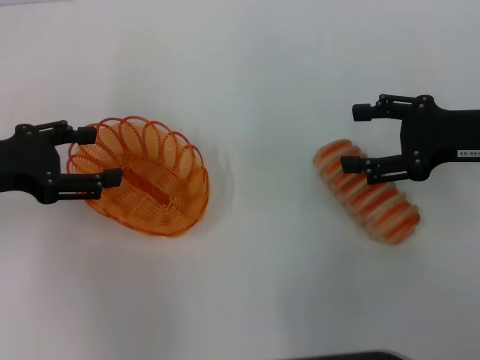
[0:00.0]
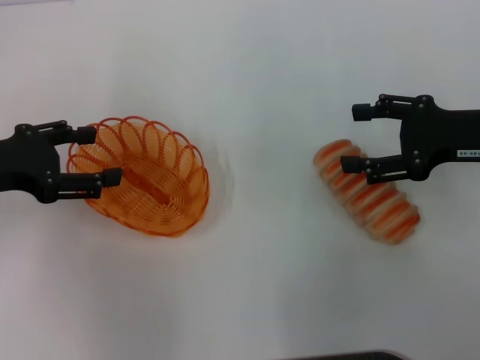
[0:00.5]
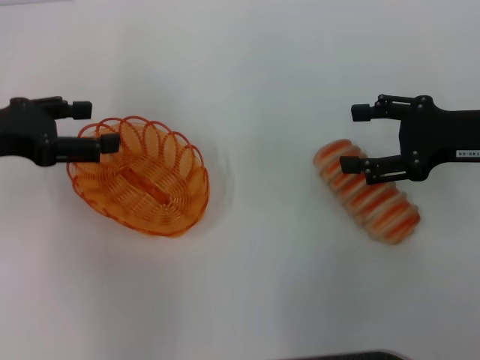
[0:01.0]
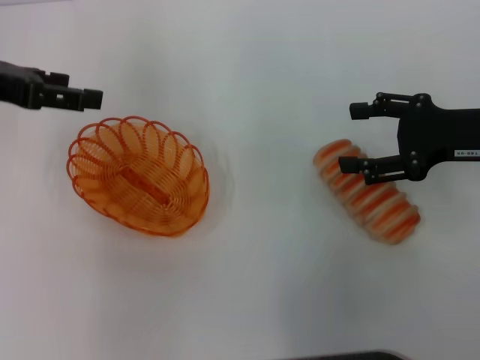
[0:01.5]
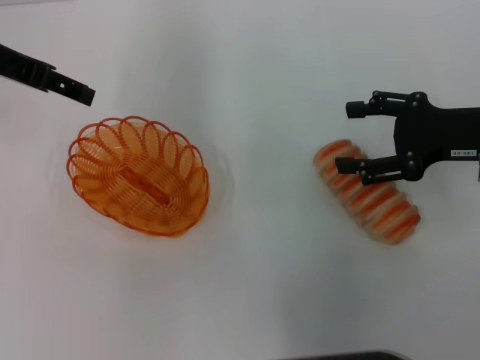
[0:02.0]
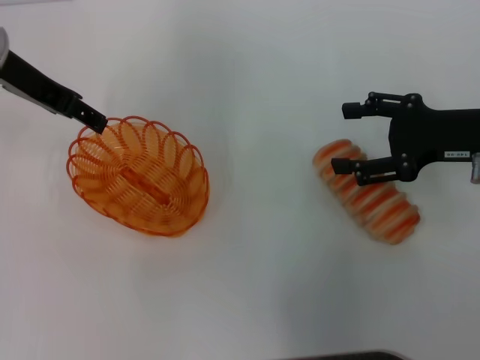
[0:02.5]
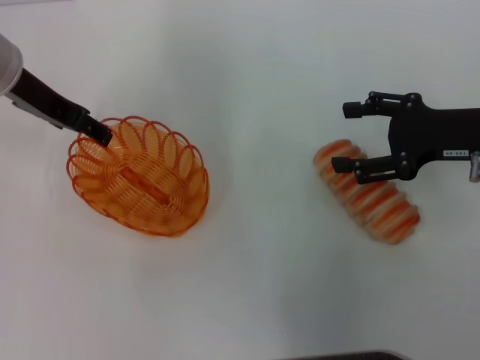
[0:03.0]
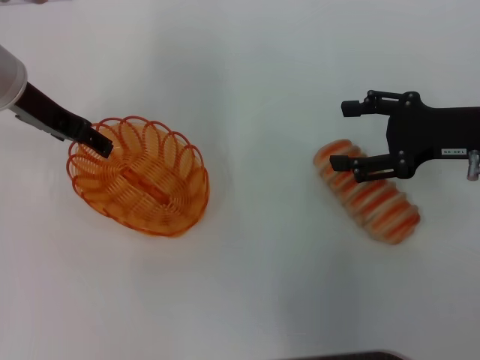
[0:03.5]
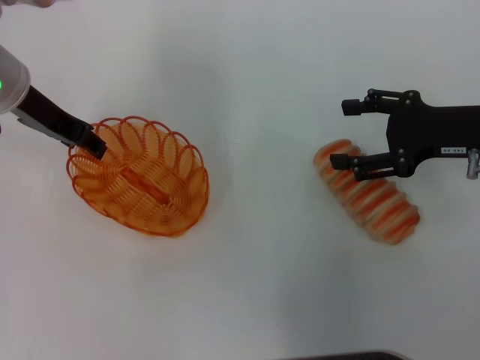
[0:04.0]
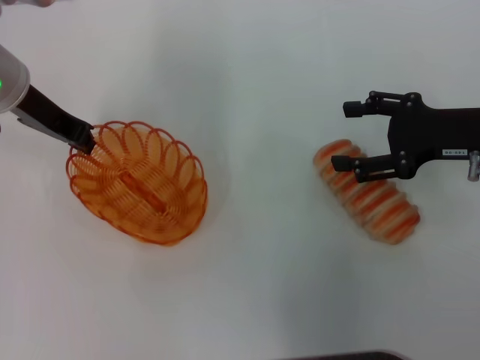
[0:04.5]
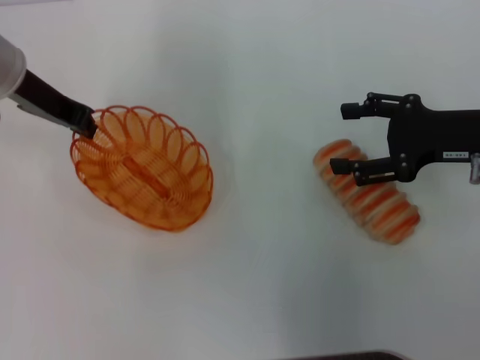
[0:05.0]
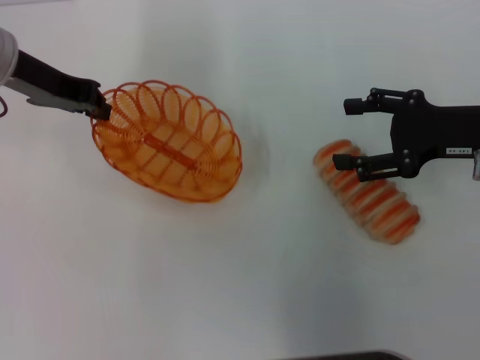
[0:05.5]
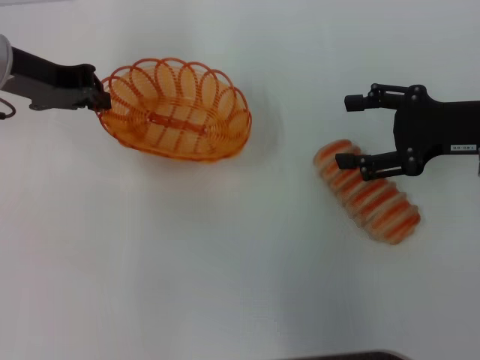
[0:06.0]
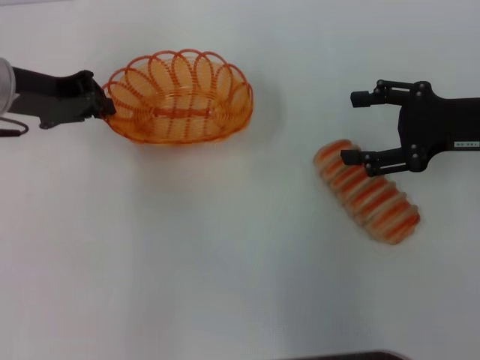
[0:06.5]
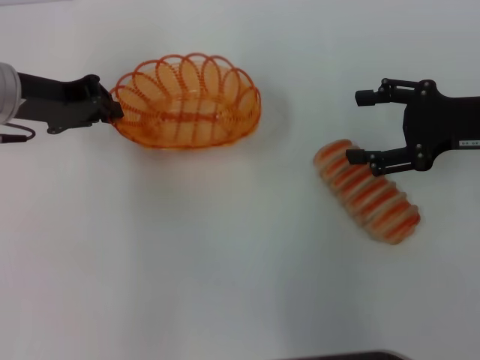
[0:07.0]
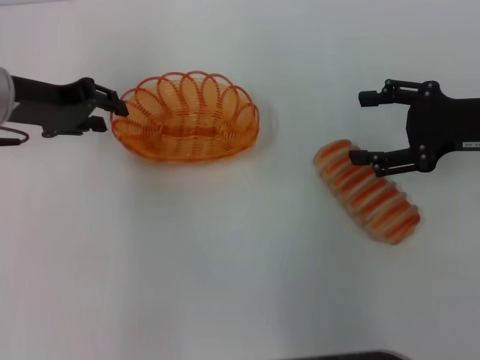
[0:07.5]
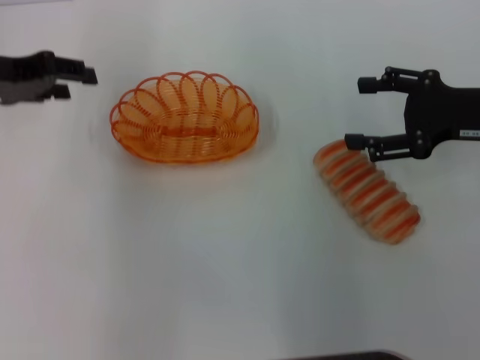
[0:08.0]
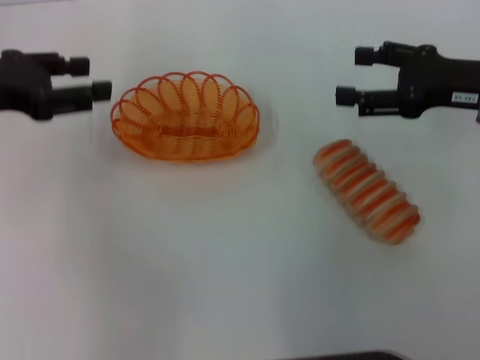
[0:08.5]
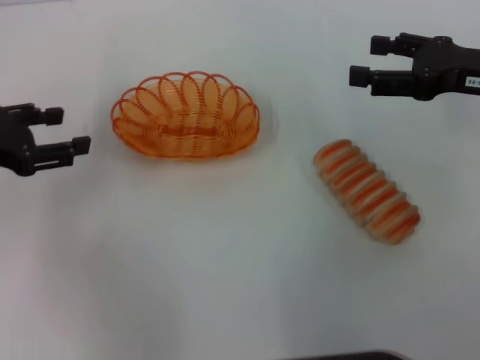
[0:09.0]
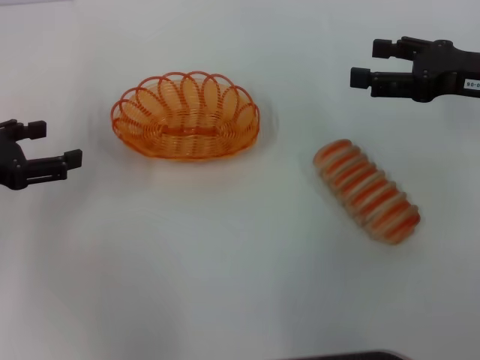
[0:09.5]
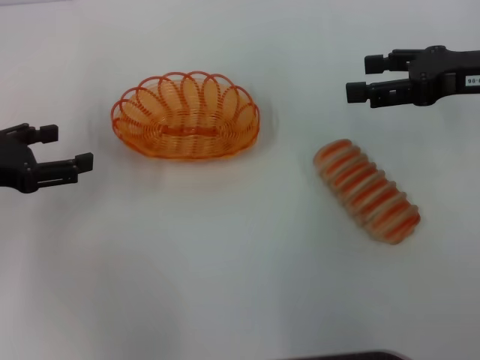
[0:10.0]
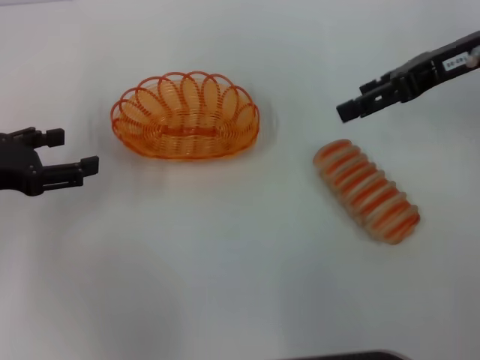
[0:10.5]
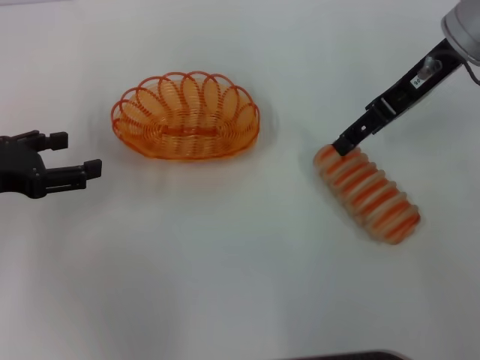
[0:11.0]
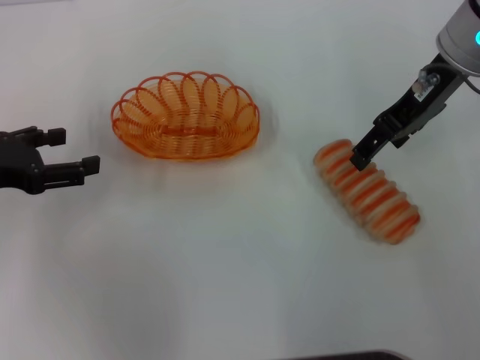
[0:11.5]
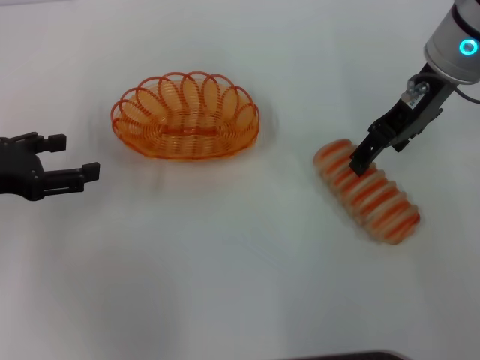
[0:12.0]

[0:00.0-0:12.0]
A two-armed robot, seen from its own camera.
Step, 0:00.0 to 0:05.0: Pick up the basket with the left gripper.
Step, 0:06.0 to 0:08.0: Place the basket in the center of view with the left gripper.
0:00.0 to 0:02.0: The left gripper heads forward and upward, covering roughly 15 cm.
0:02.0 to 0:04.0: The left gripper heads downward, covering about 5 cm.
0:04.0 to 0:06.0: The left gripper closes.
0:06.0 to 0:08.0: The left gripper opens its fingers.
0:08.0 to 0:10.0: The left gripper shifts approximately 10 cm backward and downward, and opens.
0:10.0 to 0:12.0: The right gripper heads to the left and forward, covering about 10 cm.

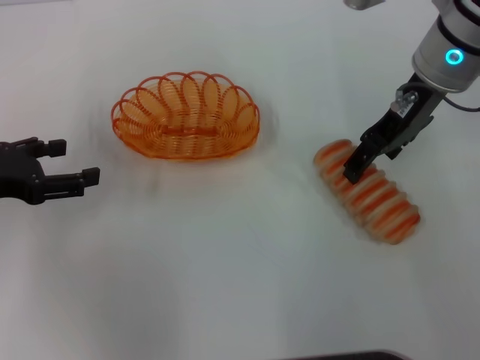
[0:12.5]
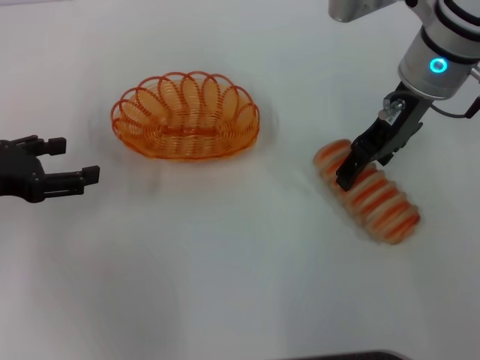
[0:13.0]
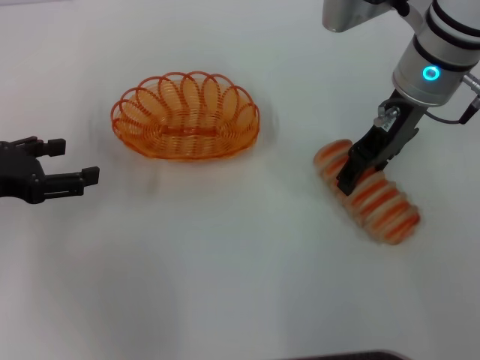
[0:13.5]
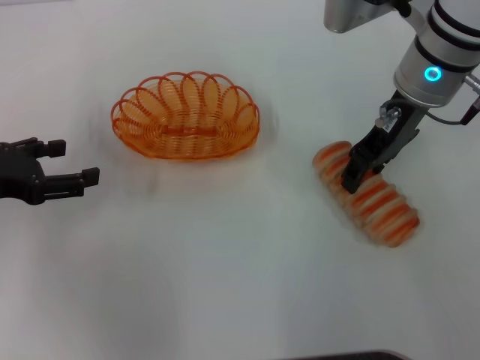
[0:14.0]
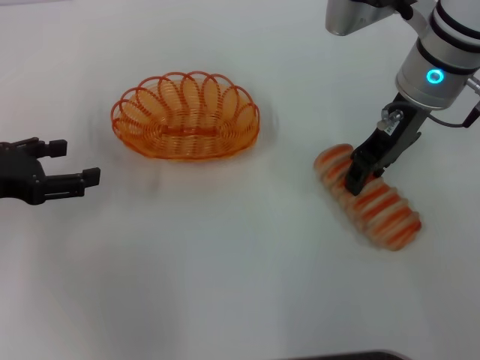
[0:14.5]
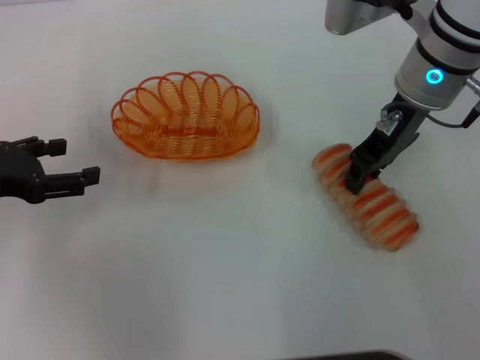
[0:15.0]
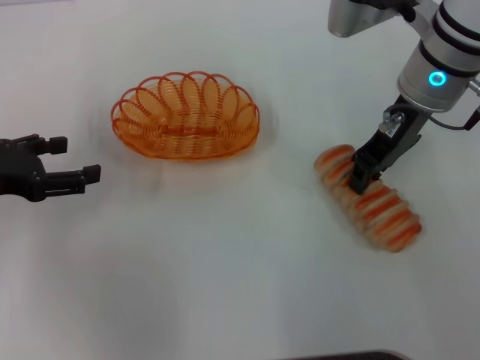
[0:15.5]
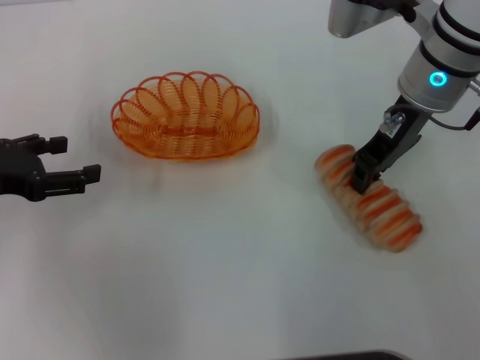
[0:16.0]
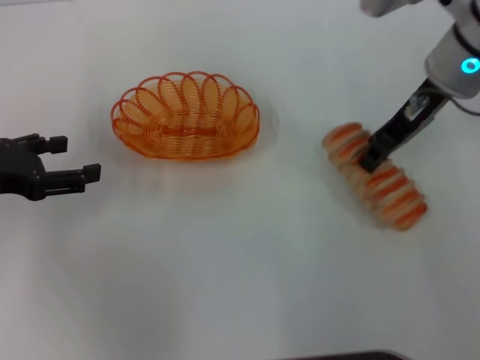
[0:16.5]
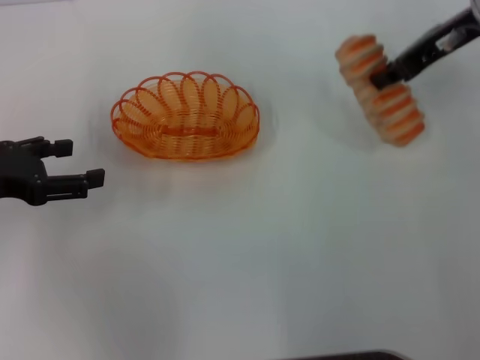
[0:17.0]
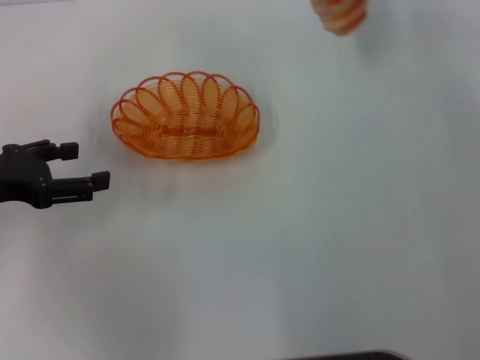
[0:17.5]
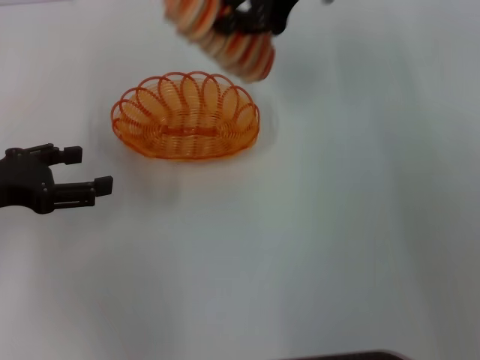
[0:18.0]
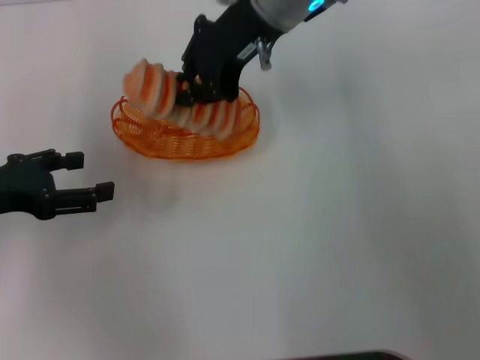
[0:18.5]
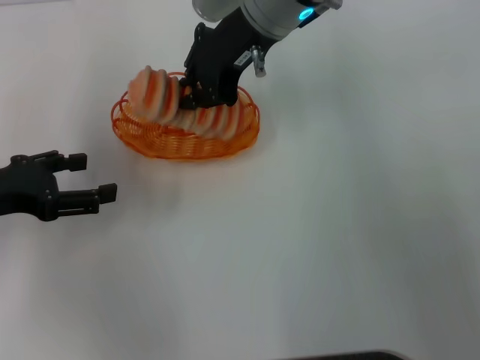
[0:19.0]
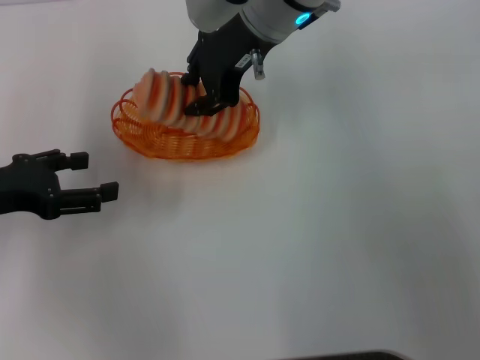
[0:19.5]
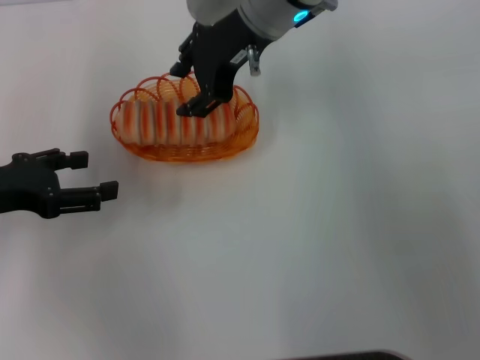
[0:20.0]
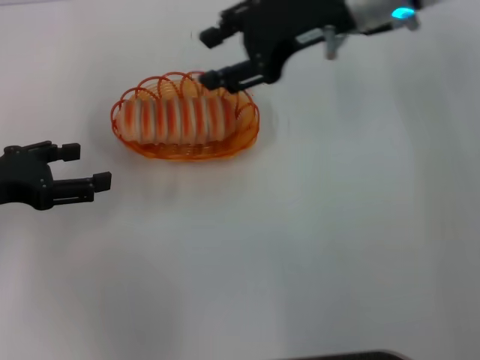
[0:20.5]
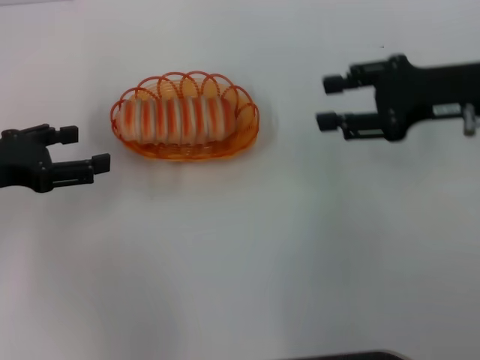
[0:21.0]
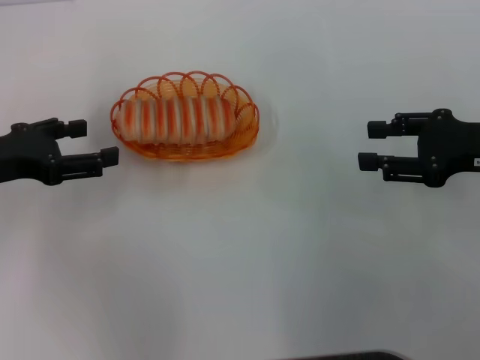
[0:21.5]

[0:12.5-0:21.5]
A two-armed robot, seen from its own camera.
Step, 0:12.5 to 0:16.5: Pick up the long bread with the right gripper.
Step, 0:17.0 to 0:20.5: Place the long bread into the basket with the right gripper.
0:12.5 to 0:14.5: The right gripper closes.
0:14.5 to 0:17.0: The right gripper moves to the right, some 10 cm, and closes its fingers.
0:17.0 to 0:19.5: The right gripper travels to the left by approximately 20 cm.
0:19.5 to 0:21.5: The right gripper goes some 30 cm to the right and backward, and opens.

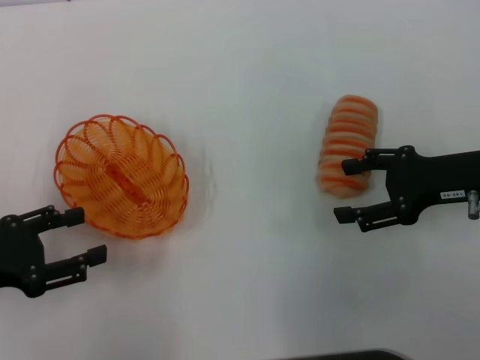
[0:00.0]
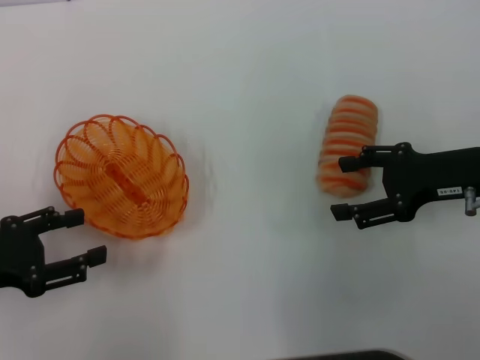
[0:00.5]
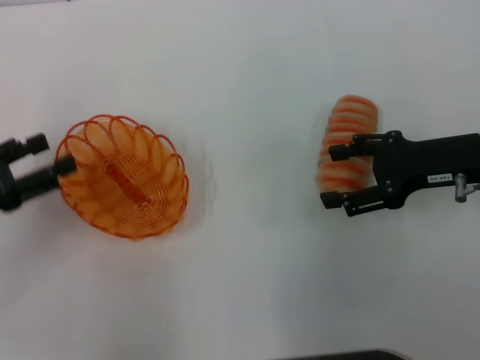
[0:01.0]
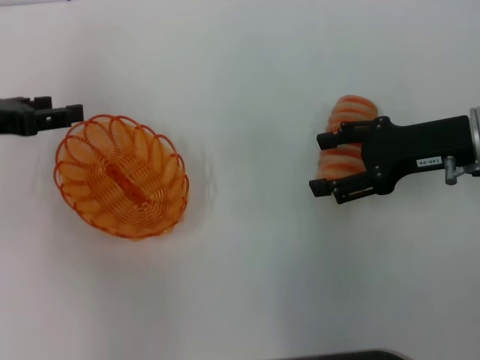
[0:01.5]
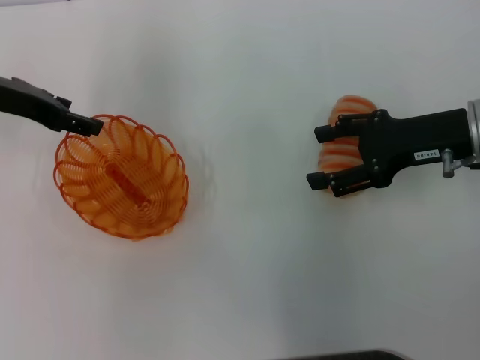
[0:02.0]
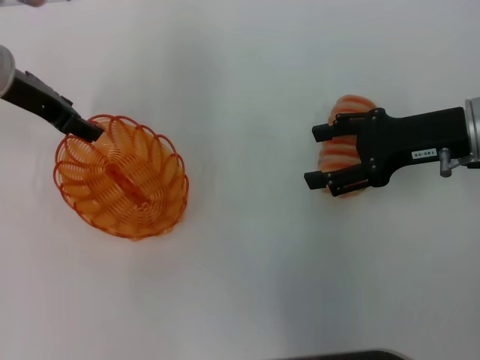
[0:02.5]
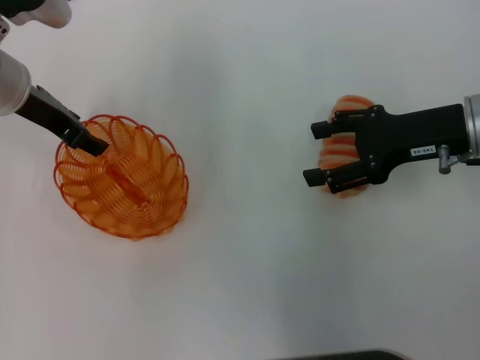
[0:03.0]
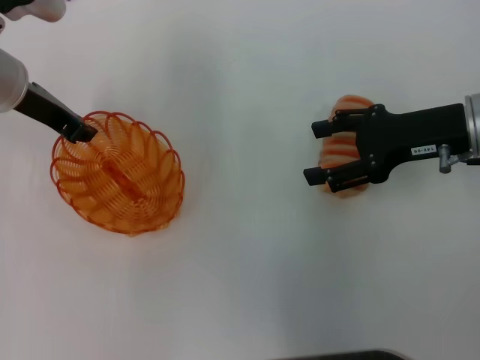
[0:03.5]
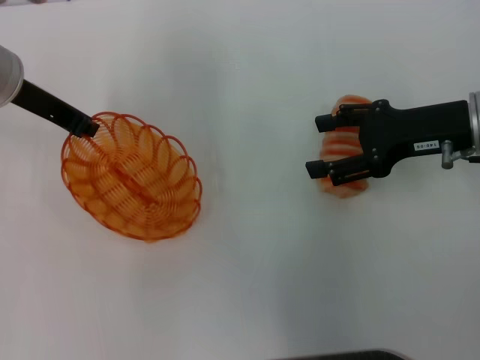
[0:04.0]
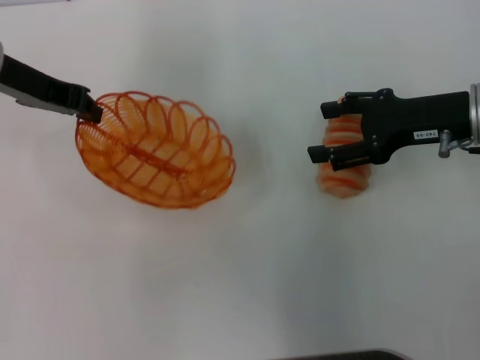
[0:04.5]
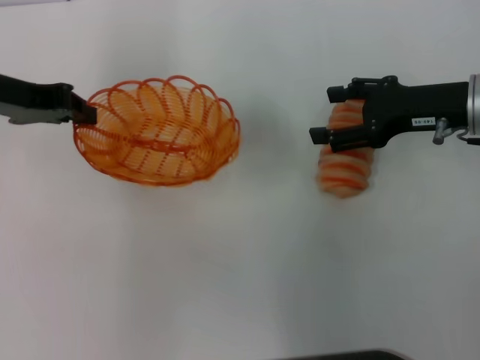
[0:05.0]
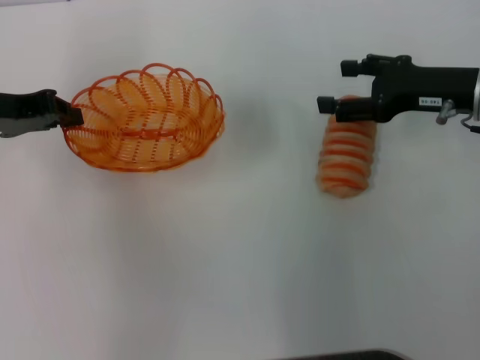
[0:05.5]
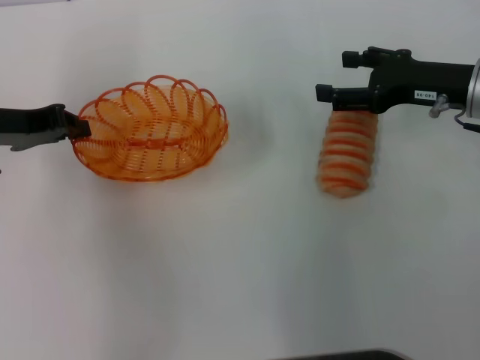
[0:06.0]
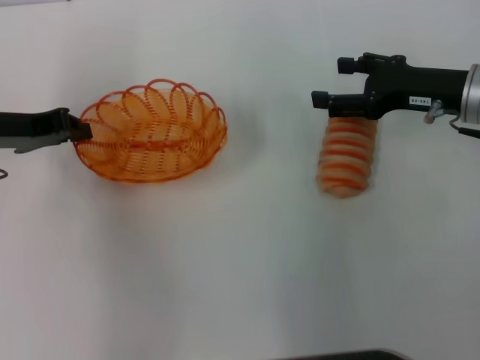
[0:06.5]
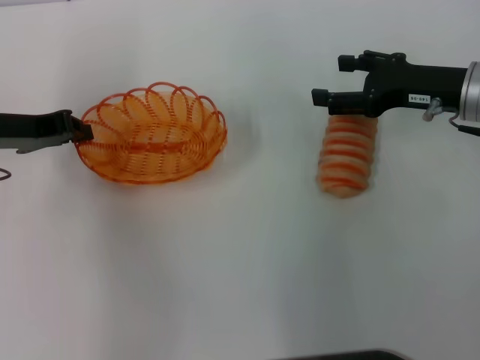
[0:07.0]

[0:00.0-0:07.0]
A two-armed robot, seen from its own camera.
Step, 0:00.0 to 0:04.0: Pick up the basket with the left gripper.
0:00.0 to 0:02.0: The left gripper goes about 20 cm forward and upward.
0:02.0 to 0:03.5: The left gripper closes its fingers.
0:03.5 to 0:05.0: The left gripper moves some 5 cm, and closes its fingers.
0:05.0 to 0:07.0: The left gripper travels downward by some 5 cm.
